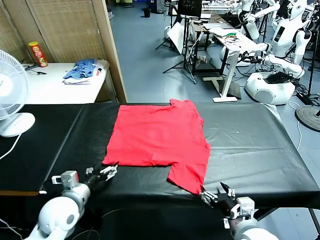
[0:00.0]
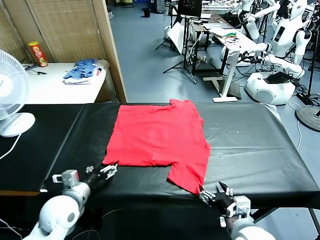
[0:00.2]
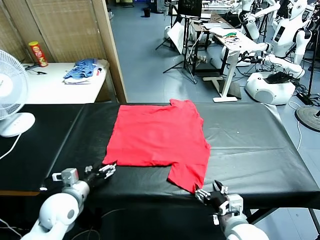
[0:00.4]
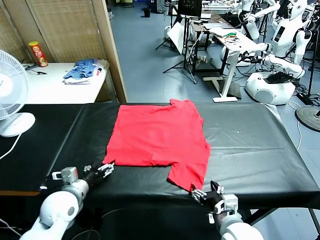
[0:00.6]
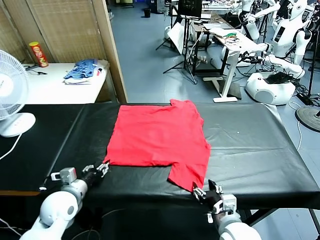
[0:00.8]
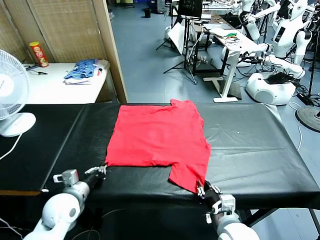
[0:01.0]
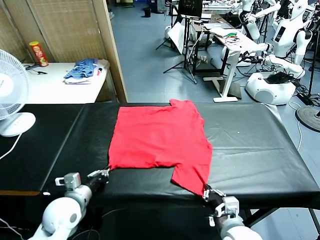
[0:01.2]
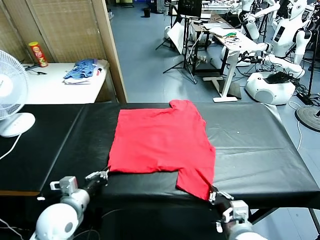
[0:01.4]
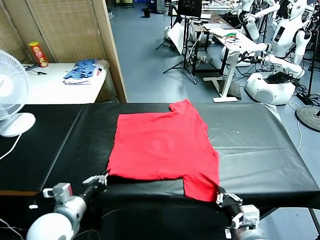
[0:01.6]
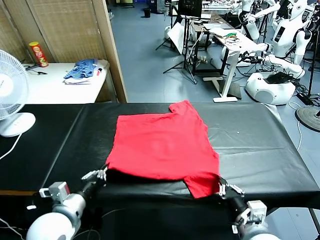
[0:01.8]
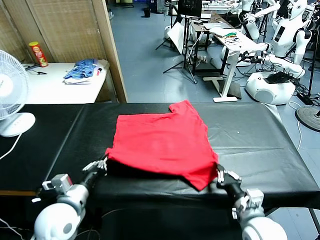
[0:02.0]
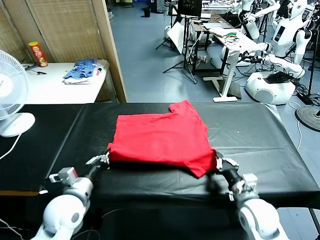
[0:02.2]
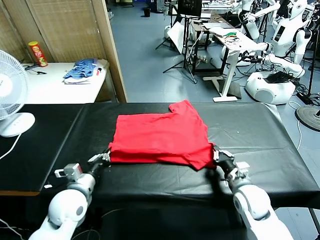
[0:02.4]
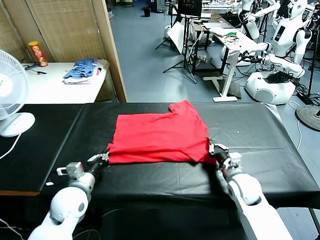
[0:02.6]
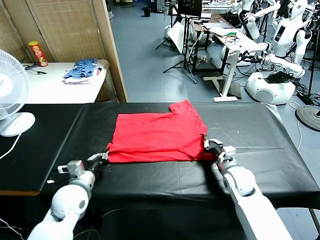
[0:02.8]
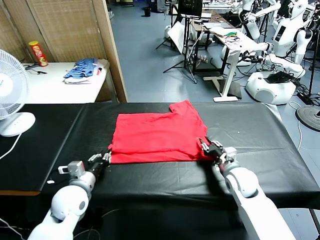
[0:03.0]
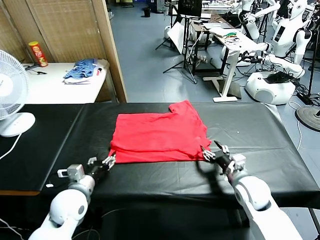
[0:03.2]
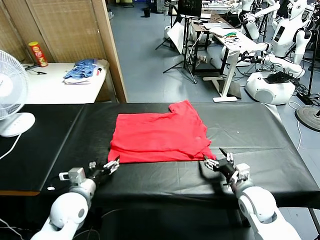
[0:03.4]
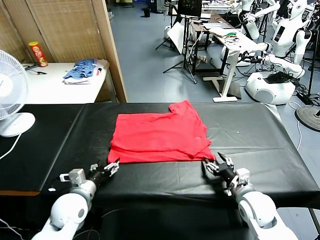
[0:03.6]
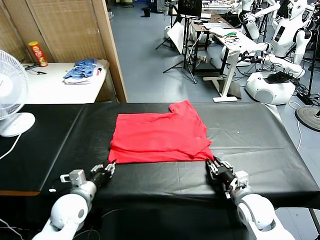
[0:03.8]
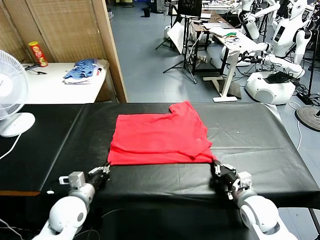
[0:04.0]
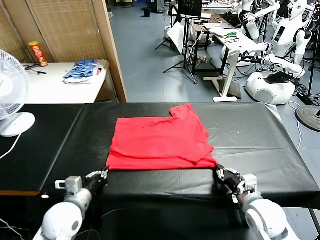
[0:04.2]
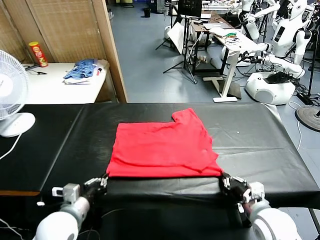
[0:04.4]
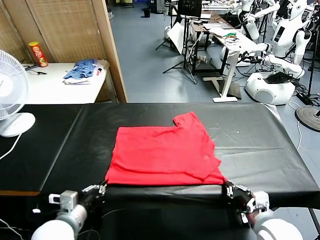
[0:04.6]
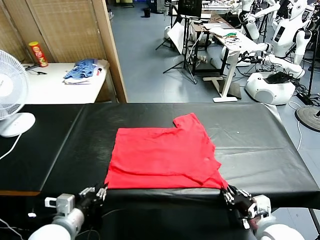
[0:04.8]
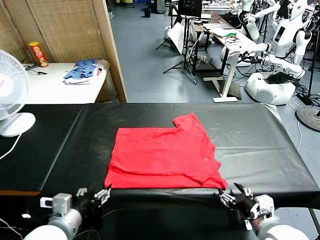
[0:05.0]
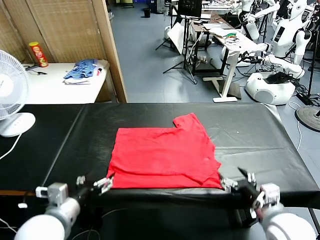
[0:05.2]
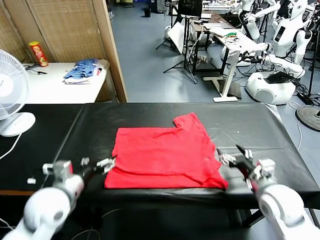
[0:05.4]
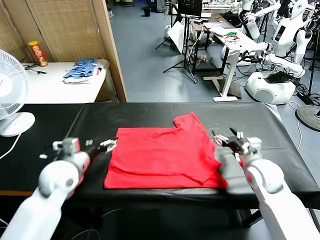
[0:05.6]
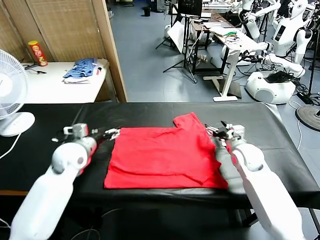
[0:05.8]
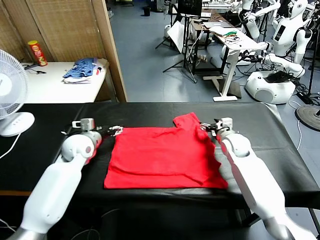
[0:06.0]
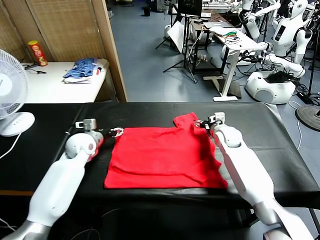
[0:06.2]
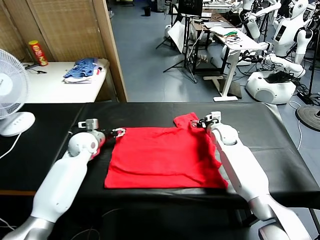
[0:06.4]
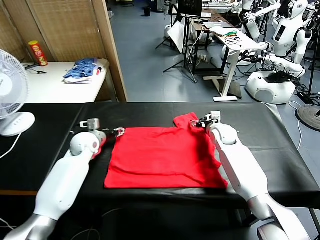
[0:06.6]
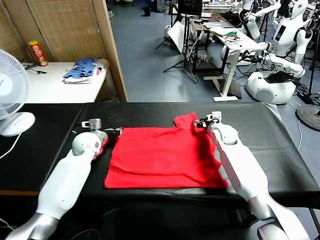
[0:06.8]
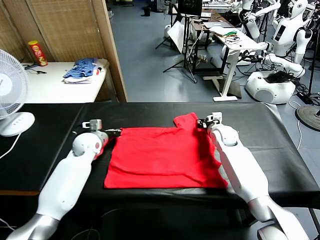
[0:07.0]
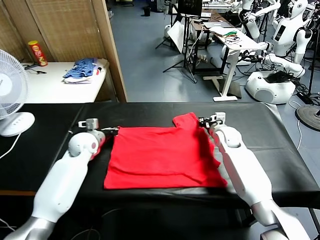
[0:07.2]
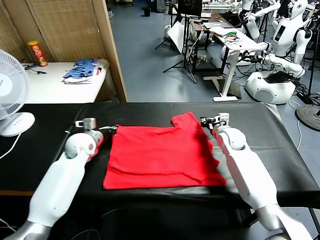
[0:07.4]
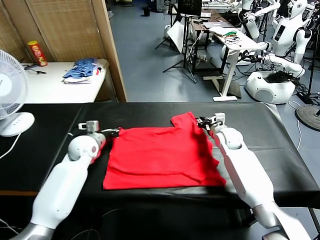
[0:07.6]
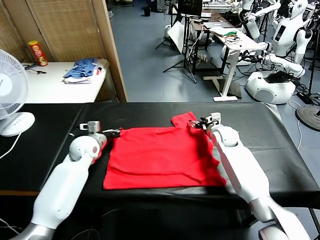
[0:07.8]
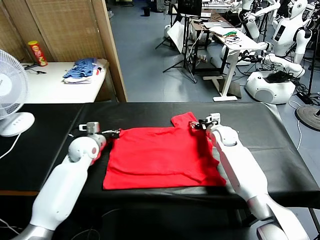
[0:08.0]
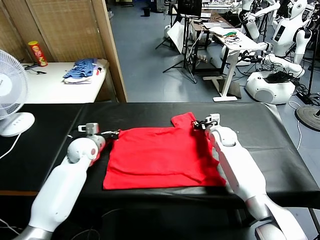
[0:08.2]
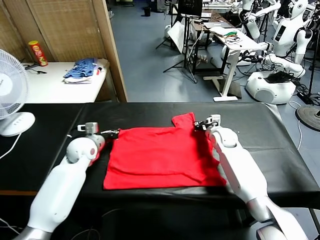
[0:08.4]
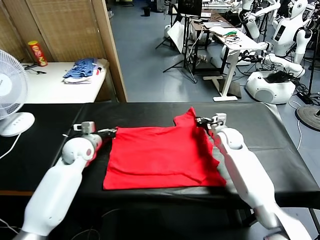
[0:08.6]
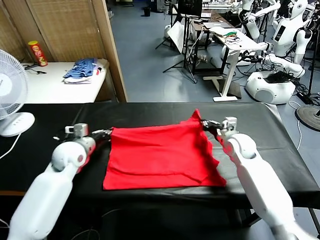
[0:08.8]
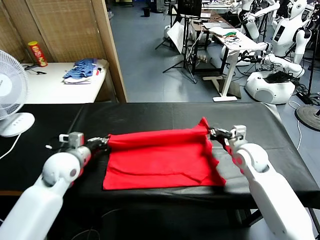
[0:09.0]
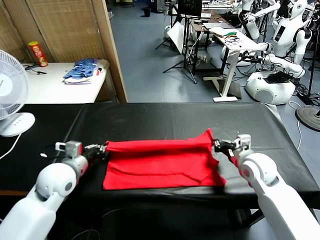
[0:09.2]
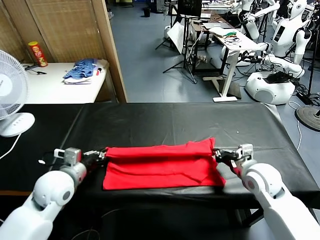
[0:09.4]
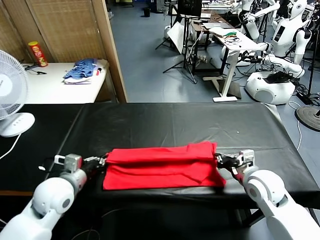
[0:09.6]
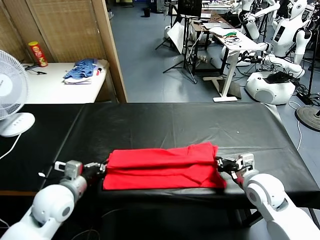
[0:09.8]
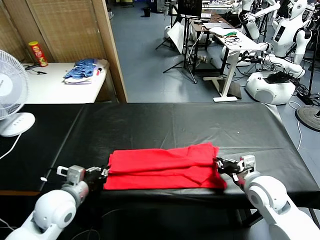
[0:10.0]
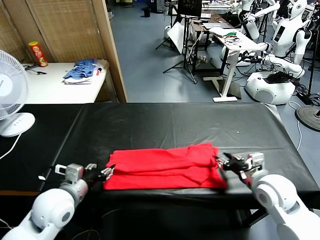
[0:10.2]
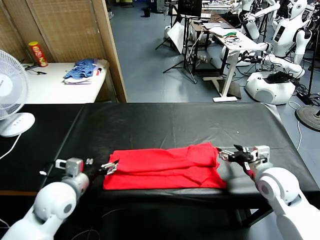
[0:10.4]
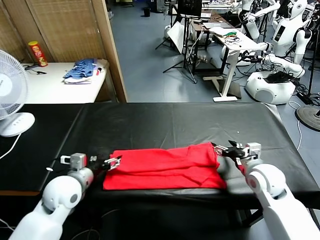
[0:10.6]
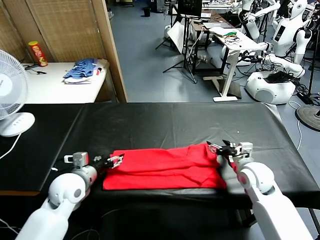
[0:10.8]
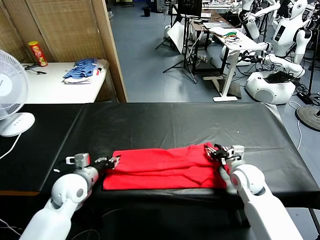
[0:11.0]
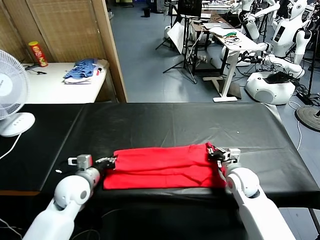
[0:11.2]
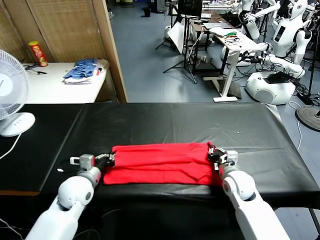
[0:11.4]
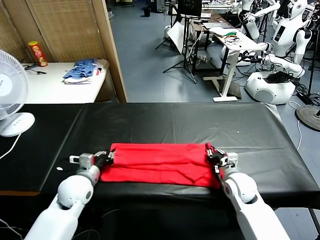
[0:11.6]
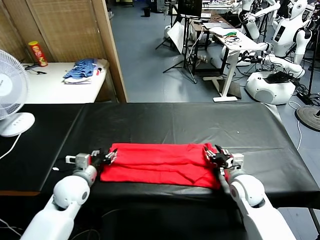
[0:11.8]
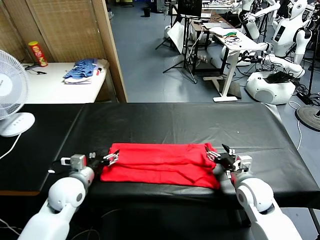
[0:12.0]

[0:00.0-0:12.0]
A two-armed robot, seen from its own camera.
Task of the whole recording: fold and organize the clothes.
Step, 0:00.0 to 0:01.0: use both grippers simultaneously to clamp the lower edge of the clothing fabric.
Step, 0:01.2 to 0:03.0: use both grippers to drag the lower edge of the fabric forward and fold it over the upper edge.
Step, 0:03.4 to 0:05.0: Drag the clothes downward with both gripper.
Step, 0:05.2 to 0:08.4: use both grippers simultaneously to clamp the upper edge of the clothing fabric.
Step, 0:08.6 to 0:10.4: use both grippers to drag the upper edge of the fabric backward and fold it over the lower edge.
0:01.6 to 0:03.0: The right gripper goes some 15 cm forward, and opens, while the left gripper travels forward and downward by approximately 10 cm, and opens.
0:03.0 to 0:04.4: The grippers both shift backward by roughly 10 cm. The left gripper closes. Meanwhile the right gripper closes up.
0:04.4 to 0:06.0: Both grippers move forward, approximately 30 cm. The left gripper opens up. Meanwhile the right gripper opens its fingers.
0:06.0 to 0:07.6: The left gripper closes, while the right gripper closes, then reopens.
0:07.6 to 0:09.0: Both grippers move backward, about 15 cm. The right gripper closes its fingers.
0:09.0 to 0:10.4: Both grippers move backward, about 5 cm. The right gripper opens its fingers; the left gripper opens.
0:10.4 to 0:12.0: The right gripper closes, then reopens; the left gripper ends up about 5 cm from where it was, and closes, then opens again.

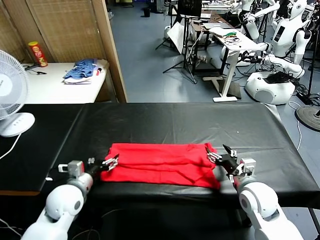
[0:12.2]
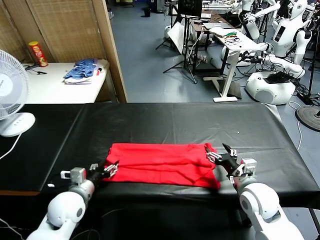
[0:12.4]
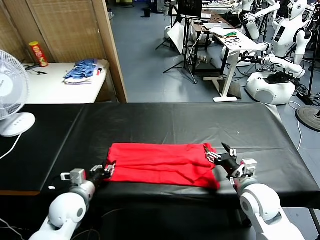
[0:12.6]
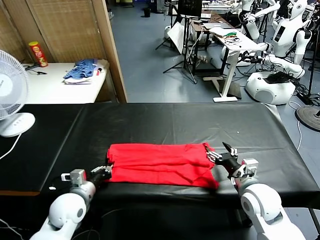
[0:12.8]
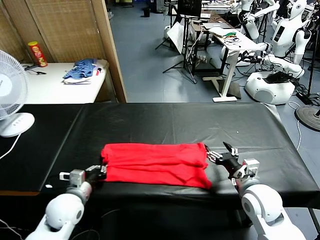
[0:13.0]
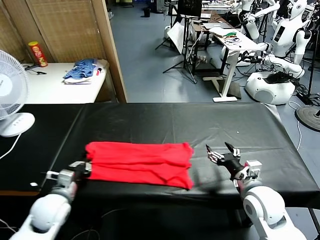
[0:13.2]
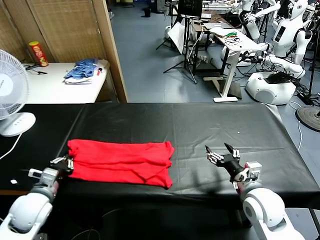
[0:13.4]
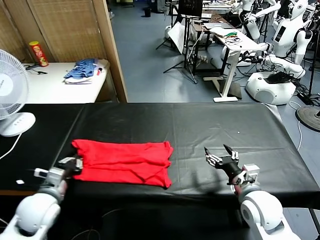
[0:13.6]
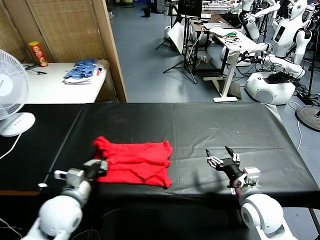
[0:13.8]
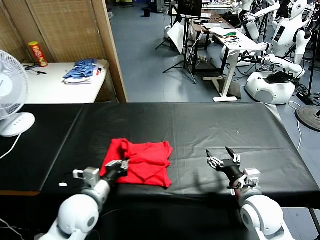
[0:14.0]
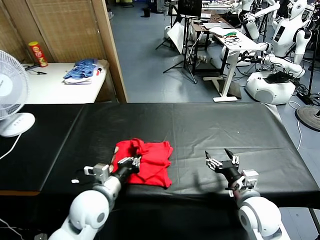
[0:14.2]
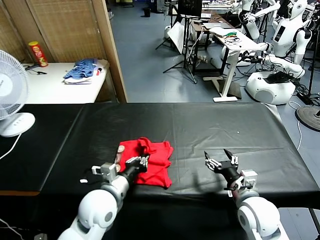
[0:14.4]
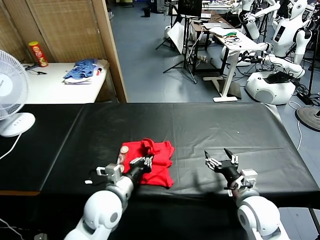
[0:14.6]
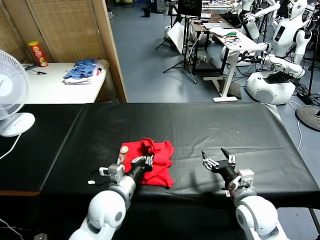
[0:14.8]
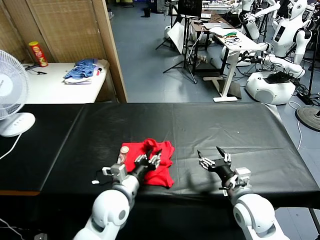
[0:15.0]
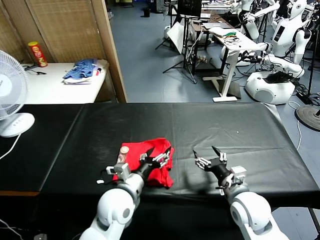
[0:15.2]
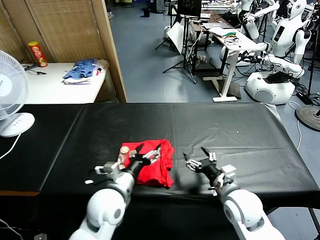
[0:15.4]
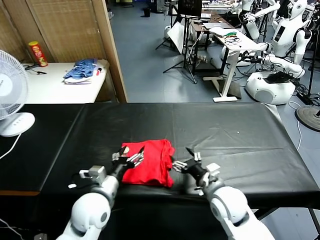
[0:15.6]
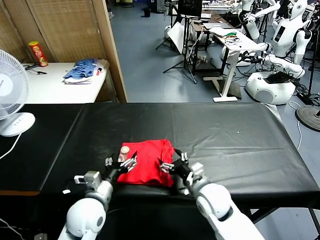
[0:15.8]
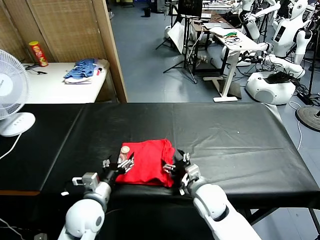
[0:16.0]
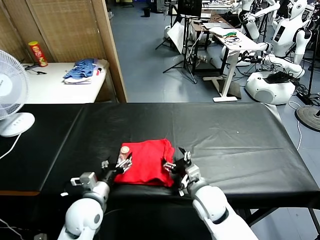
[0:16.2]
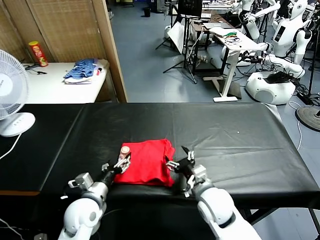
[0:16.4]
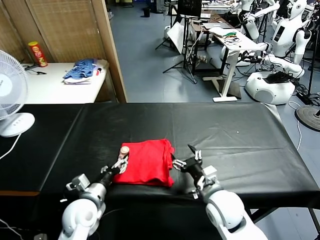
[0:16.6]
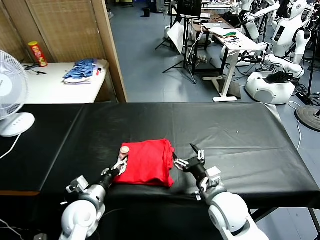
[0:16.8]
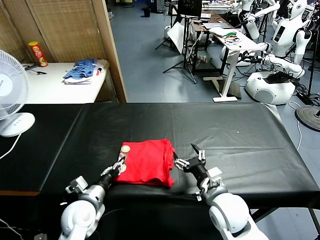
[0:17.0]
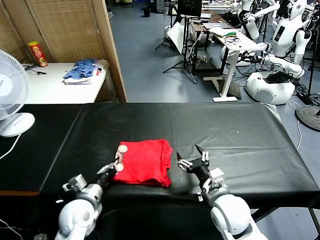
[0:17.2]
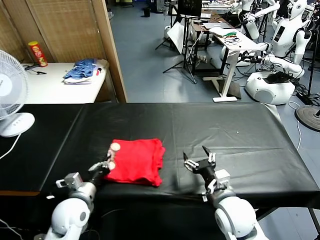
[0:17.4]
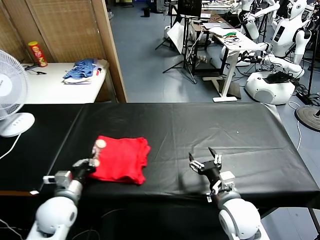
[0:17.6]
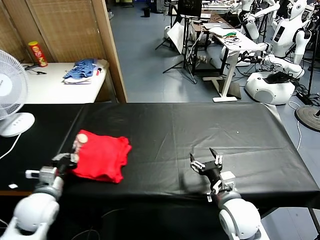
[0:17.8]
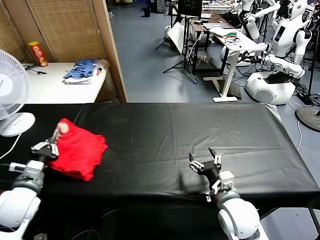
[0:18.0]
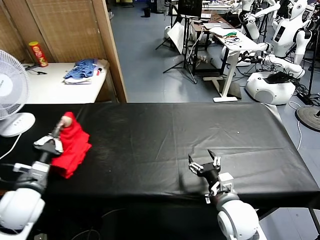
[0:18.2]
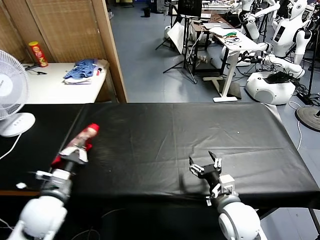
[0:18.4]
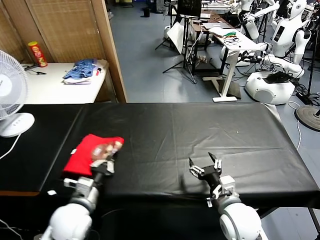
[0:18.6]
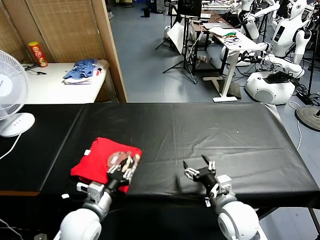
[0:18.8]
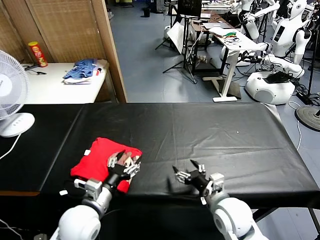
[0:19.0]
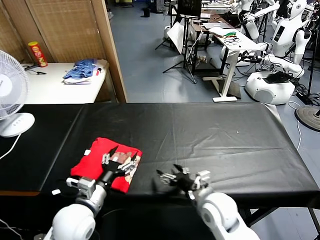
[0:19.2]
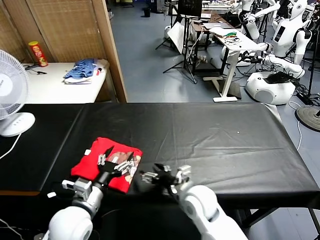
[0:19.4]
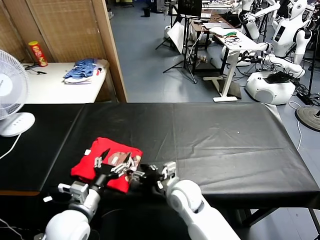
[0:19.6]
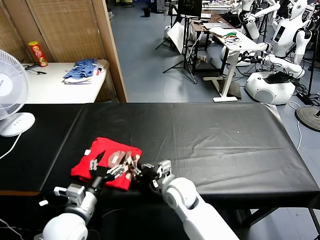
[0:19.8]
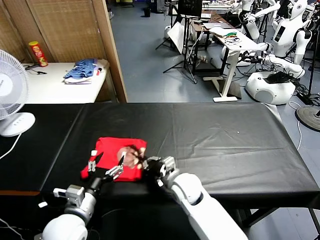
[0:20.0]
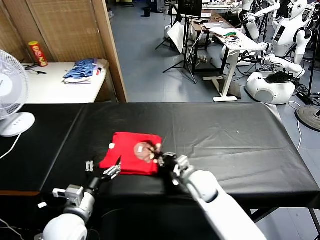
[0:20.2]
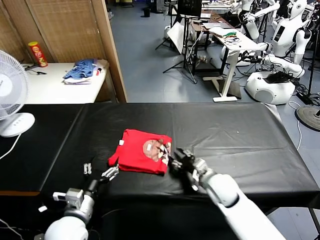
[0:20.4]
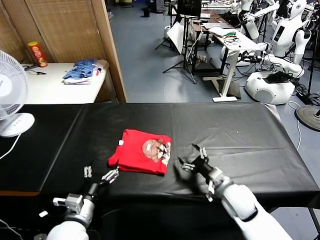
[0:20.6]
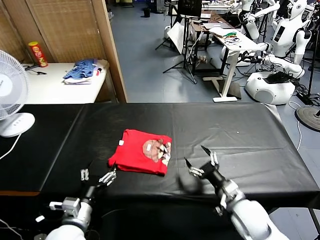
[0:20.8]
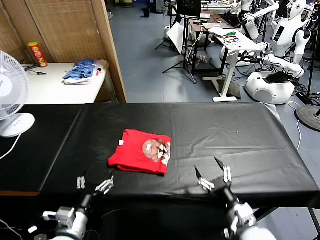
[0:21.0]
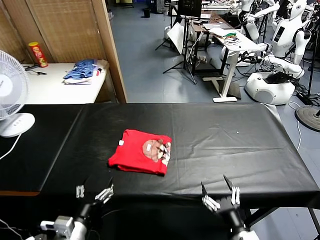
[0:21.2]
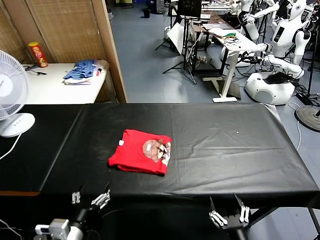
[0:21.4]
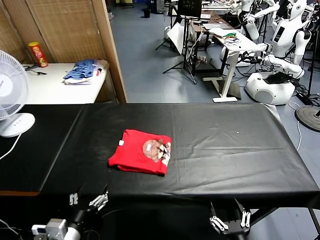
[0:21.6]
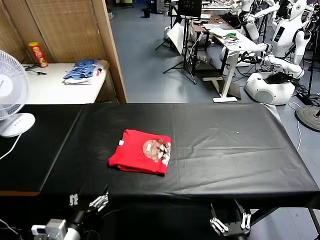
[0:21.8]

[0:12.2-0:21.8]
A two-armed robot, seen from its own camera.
Task of the whole recording: fold and organize the clothes.
Step, 0:13.0 to 0:15.2: use the left gripper to drag the left edge of the fabric to the left and folds it over the right edge.
Step, 0:15.4 to 0:18.8: Flip the folded clothes over with left gripper.
Step, 0:19.0 to 0:20.4: Drag the clothes to the center of the table.
0:12.2 to 0:13.8: The left gripper reaches some 10 cm to the left, then returns, and closes its fingers.
0:13.8 to 0:15.4: The right gripper moves about 5 cm; the left gripper moves to the right, approximately 10 cm, and opens up.
0:15.4 to 0:17.0: The left gripper shifts about 10 cm to the left and downward, and closes its fingers.
0:17.0 to 0:18.6: The left gripper goes about 5 cm upward, moves roughly 15 cm to the left and comes back, and closes up.
0:18.6 to 0:20.2: The left gripper opens up; the right gripper is displaced forward and to the left by roughly 15 cm, and closes.
0:20.2 to 0:21.8: The left gripper moves backward, some 10 cm; the right gripper is displaced backward by some 30 cm, and opens up.
